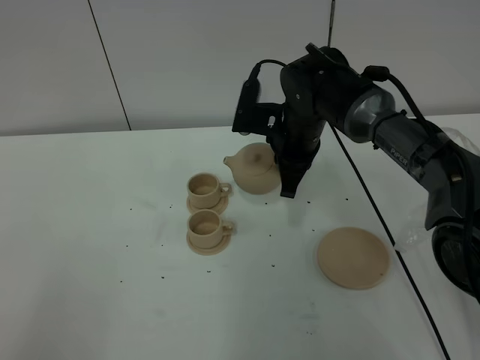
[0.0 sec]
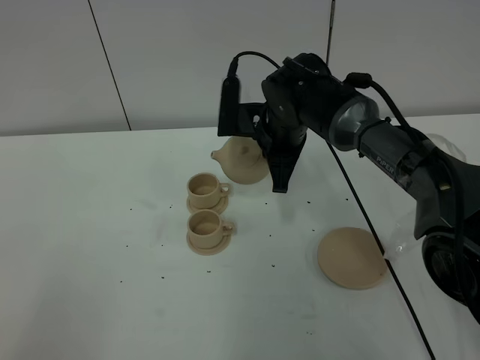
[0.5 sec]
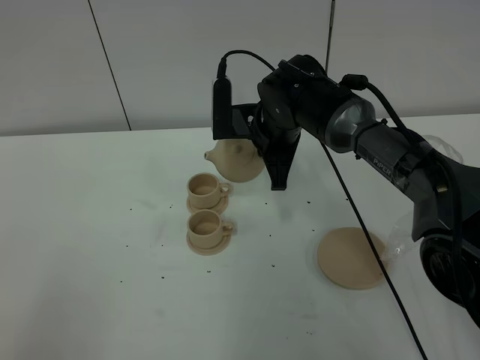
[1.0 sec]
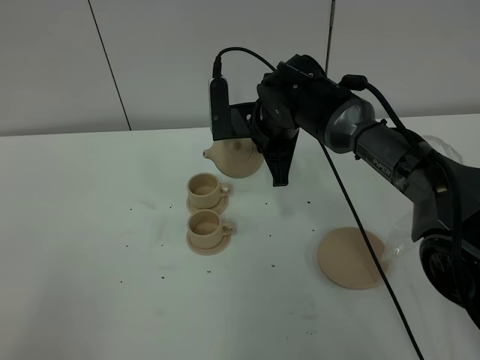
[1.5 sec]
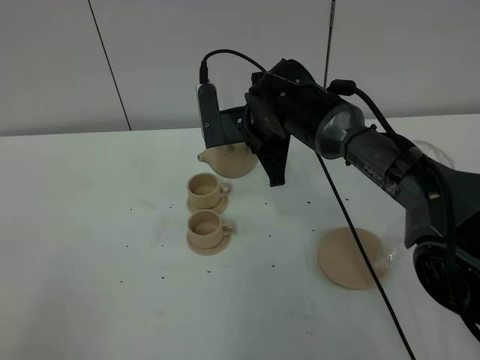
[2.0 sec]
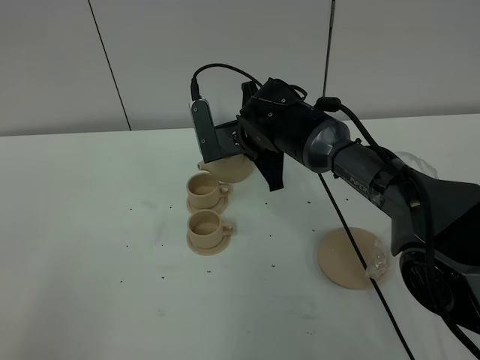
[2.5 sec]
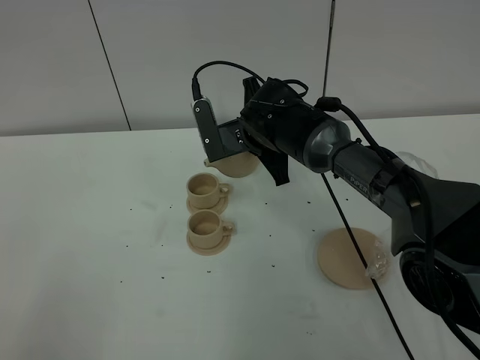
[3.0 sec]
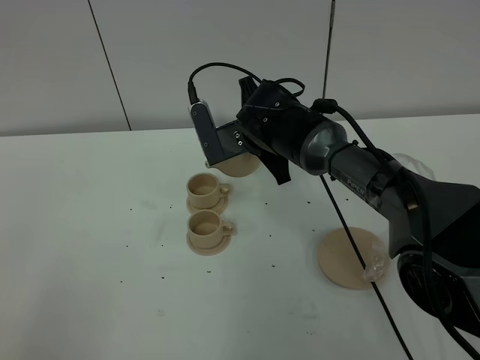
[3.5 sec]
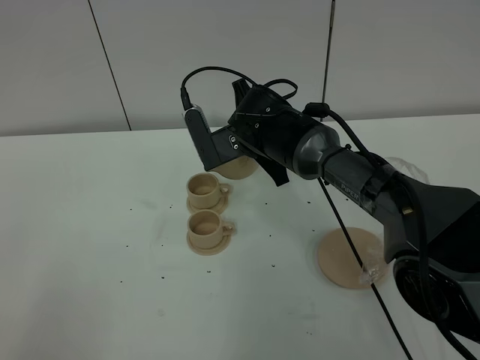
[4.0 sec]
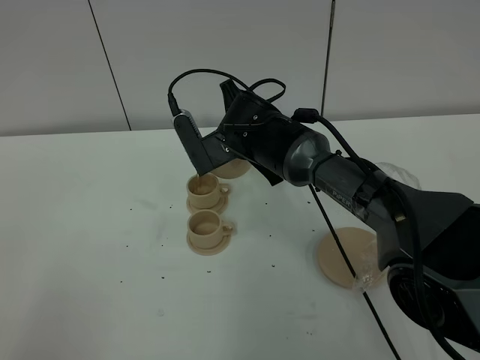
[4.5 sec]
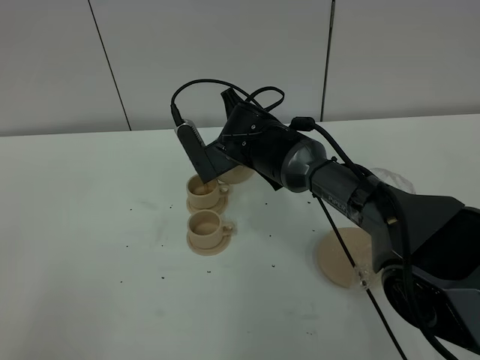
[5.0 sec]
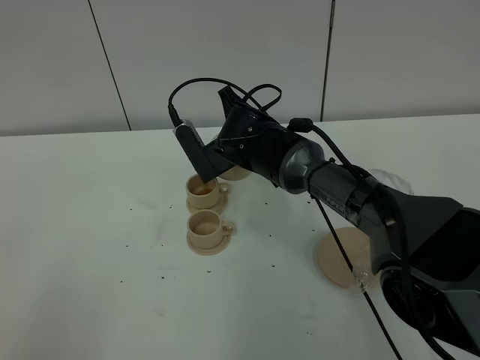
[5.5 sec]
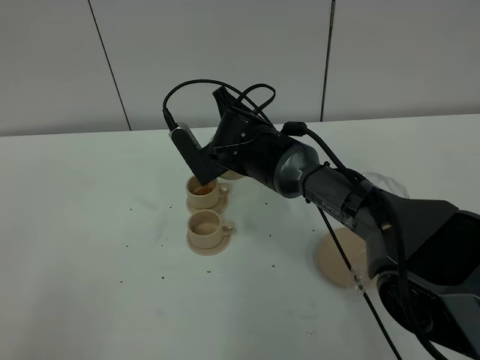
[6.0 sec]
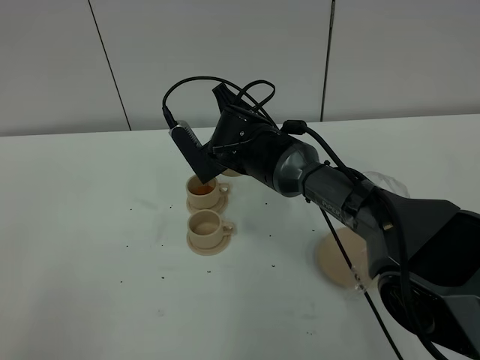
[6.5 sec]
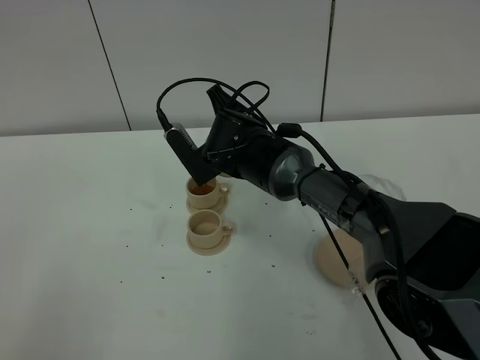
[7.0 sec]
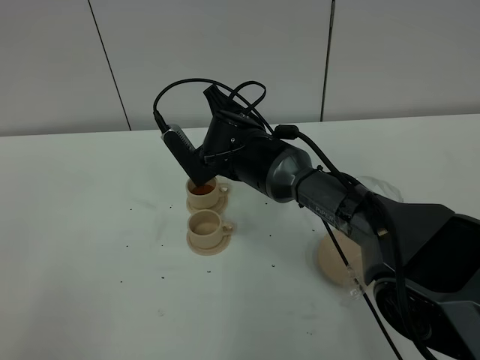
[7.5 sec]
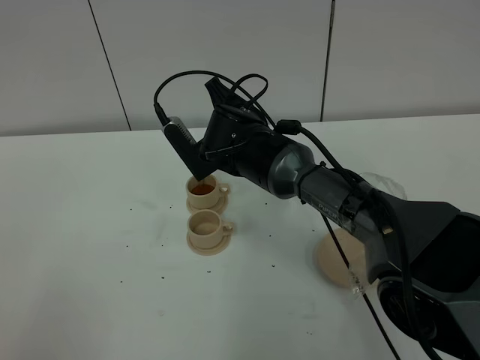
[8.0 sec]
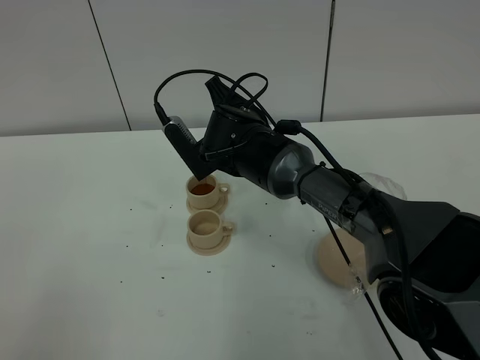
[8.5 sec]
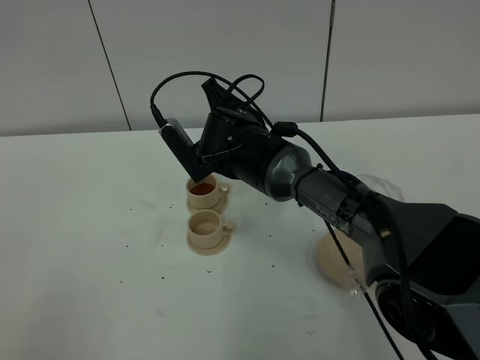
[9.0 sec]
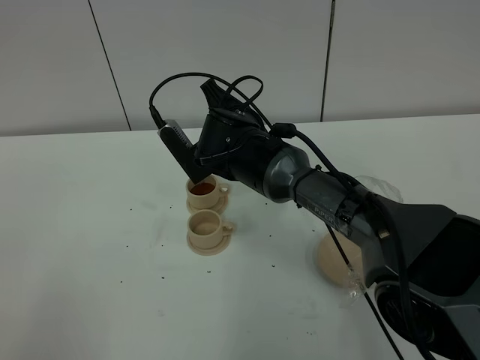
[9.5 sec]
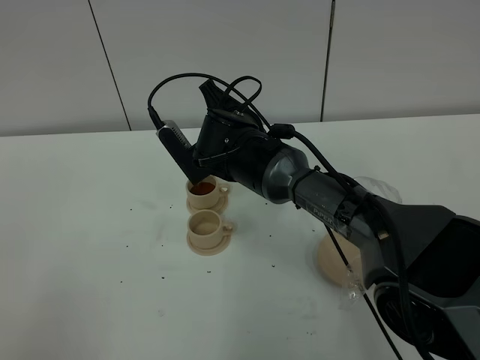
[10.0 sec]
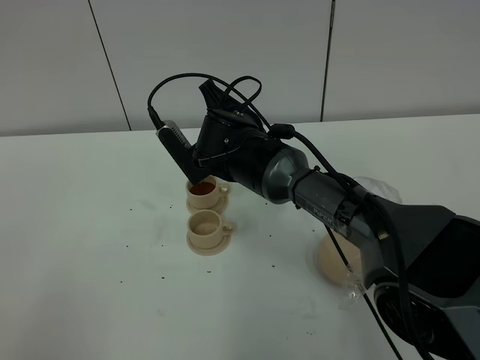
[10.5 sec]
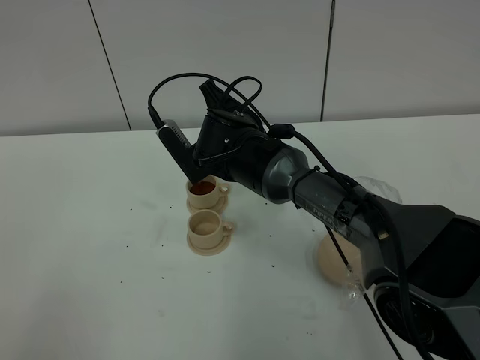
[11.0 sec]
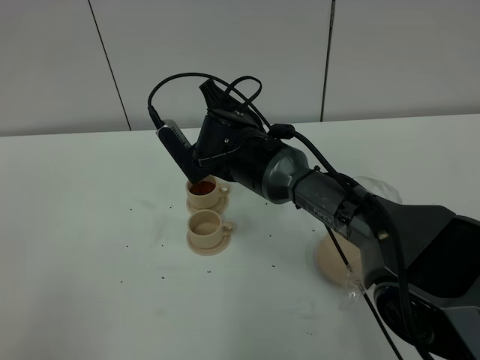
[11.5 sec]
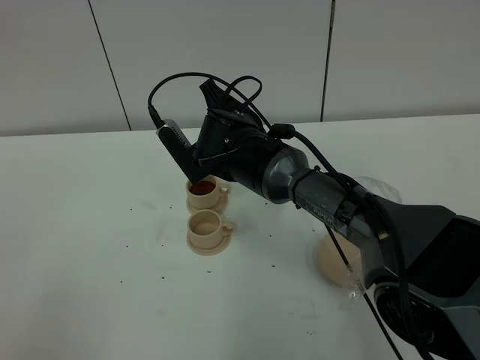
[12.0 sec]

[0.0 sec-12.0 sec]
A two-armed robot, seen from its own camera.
Task of the whole recording: grasp the brown teapot and pour the tea into the two brown teacups one by one, put the brown teapot back in its original place.
2.0 sec to 4.0 sec: There are only small adjustments of the grippers.
4.0 sec to 8.0 sec: The grippers move only a little.
8.0 sec to 12.0 sec: The two grippers keep their place.

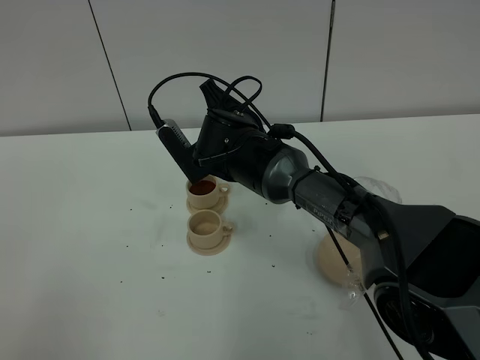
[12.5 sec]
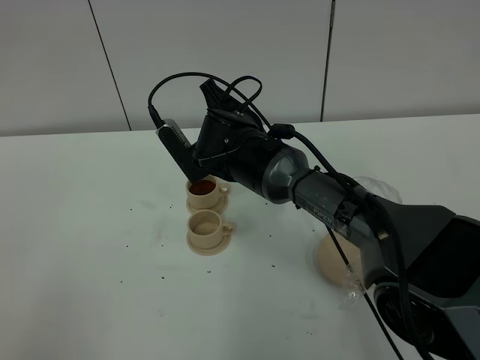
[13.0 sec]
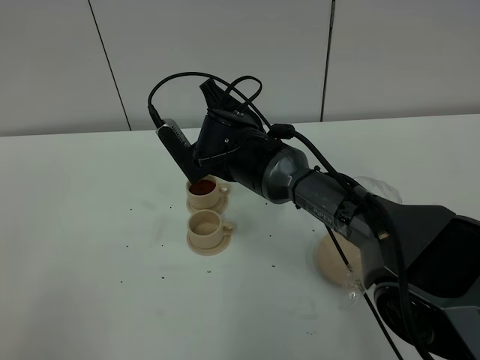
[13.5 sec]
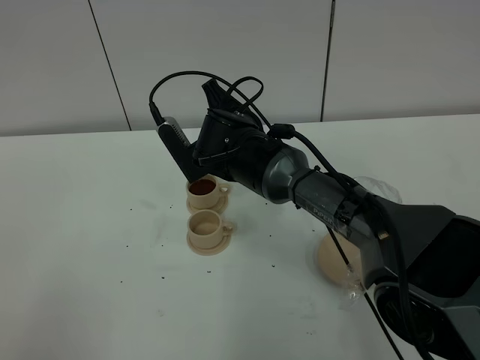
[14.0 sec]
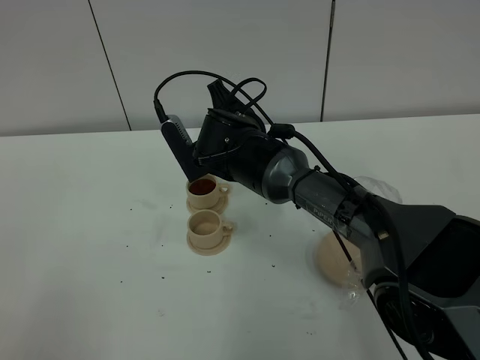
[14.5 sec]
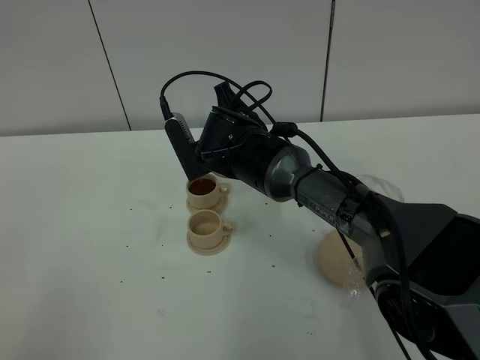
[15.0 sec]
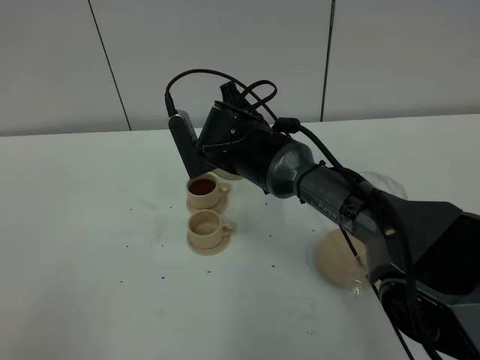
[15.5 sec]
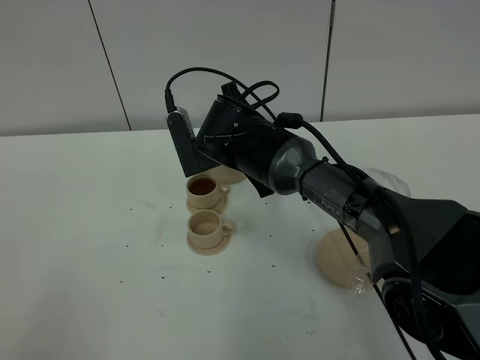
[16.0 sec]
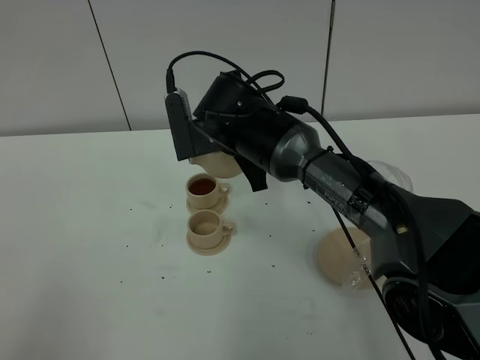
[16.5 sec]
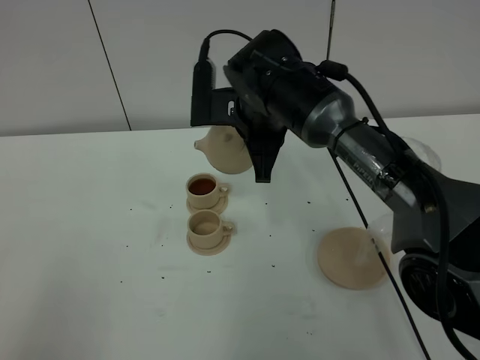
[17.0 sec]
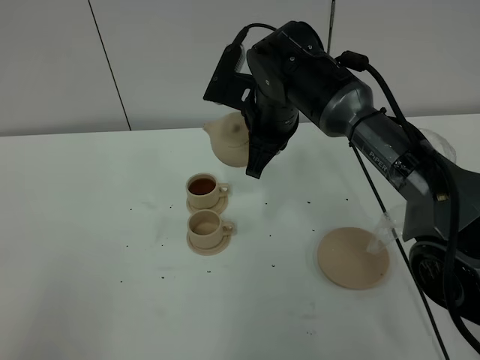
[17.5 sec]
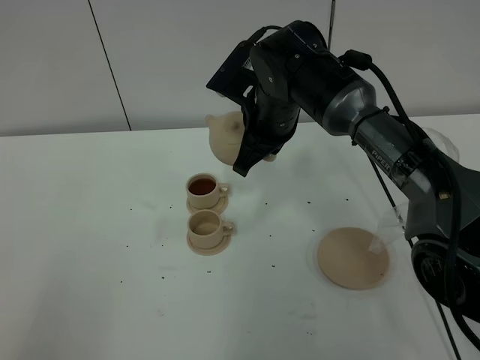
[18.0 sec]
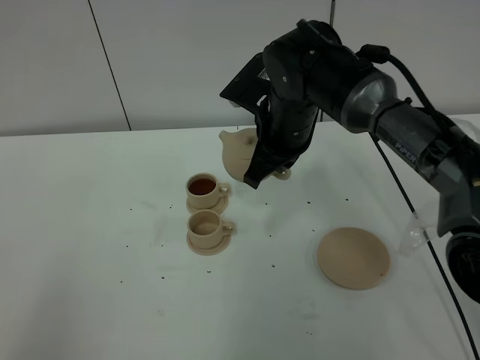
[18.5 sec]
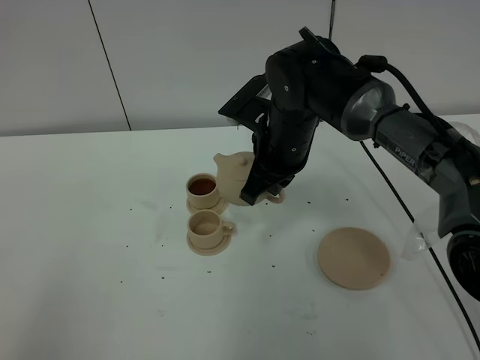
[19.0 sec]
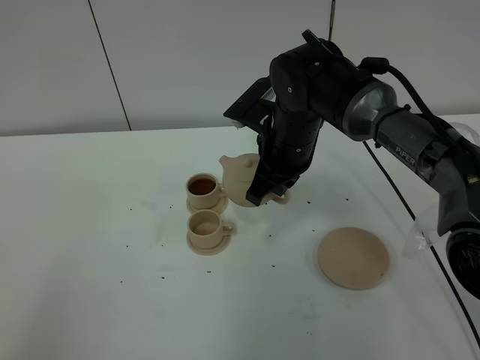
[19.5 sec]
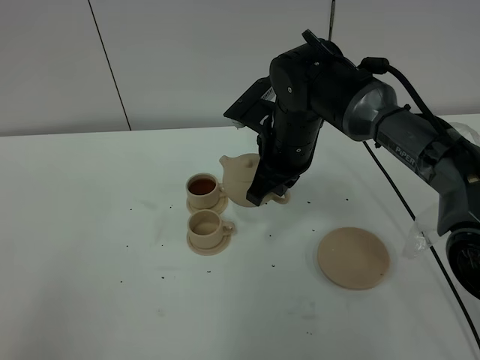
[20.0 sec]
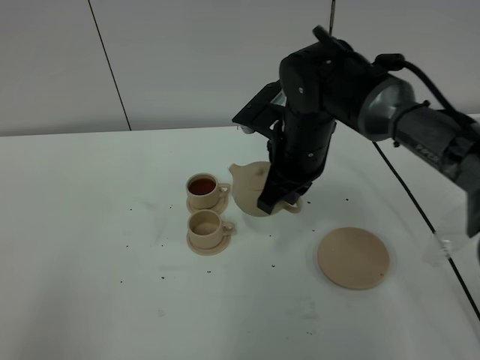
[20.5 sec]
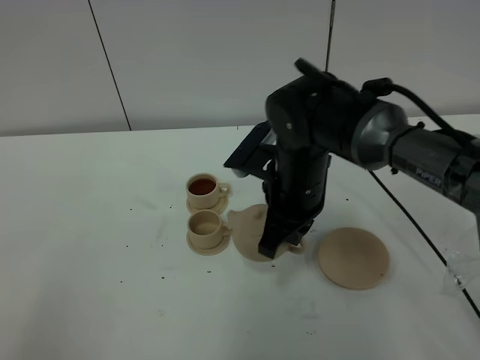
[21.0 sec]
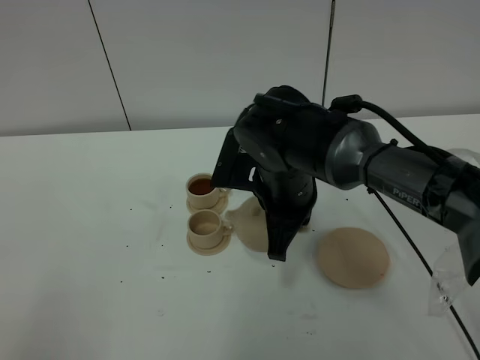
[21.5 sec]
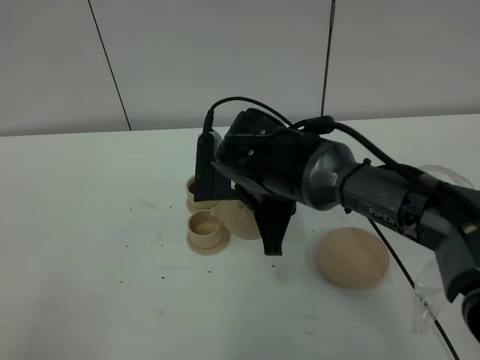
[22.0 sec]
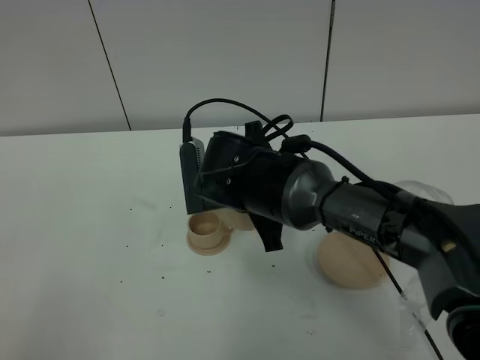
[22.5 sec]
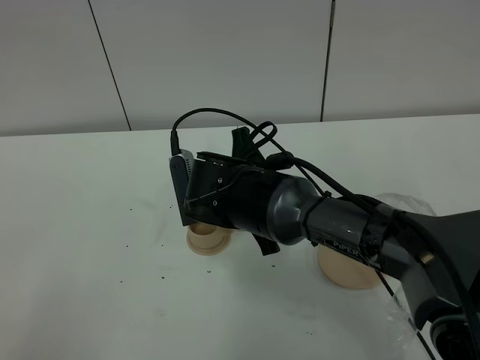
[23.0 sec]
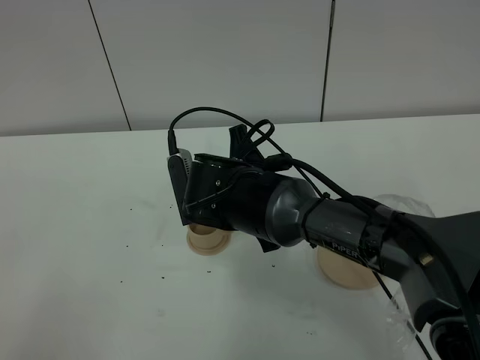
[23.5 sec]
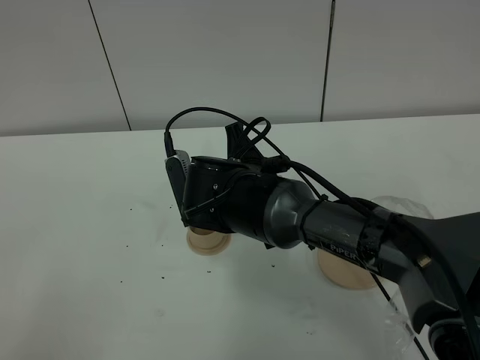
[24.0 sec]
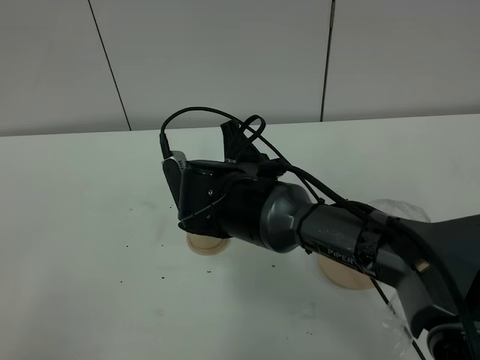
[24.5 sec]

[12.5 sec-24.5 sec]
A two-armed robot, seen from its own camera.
Task of the whole recording: grasp the brown teapot and pour the tea into the two brown teacups one by one, put the brown teapot back in its original place.
12.5 sec to 14.5 sec: The grippers move only a little.
16.5 sec to 18.5 sec: The right gripper goes some 5 cm to the right.
18.5 sec to 20.5 sec: The grippers make only small movements.
20.5 sec to 22.5 sec: The right gripper travels to the left and backward by roughly 10 cm.
22.5 sec to 24.5 sec: The grippers stay close to where they were, moving slightly.

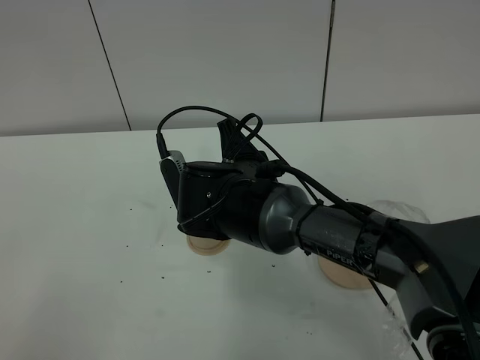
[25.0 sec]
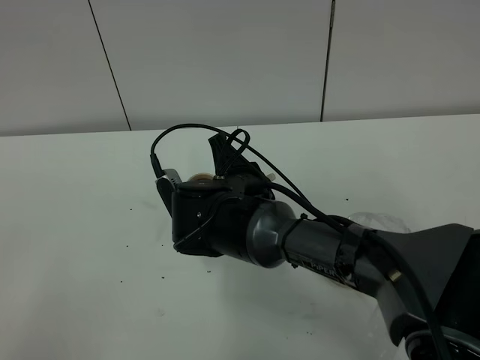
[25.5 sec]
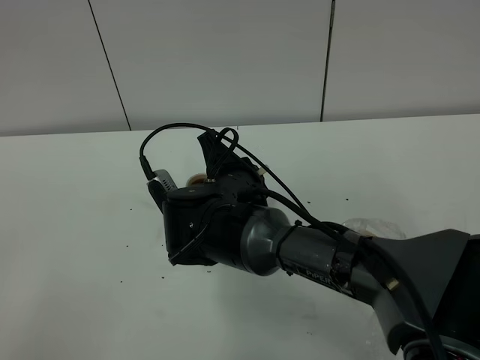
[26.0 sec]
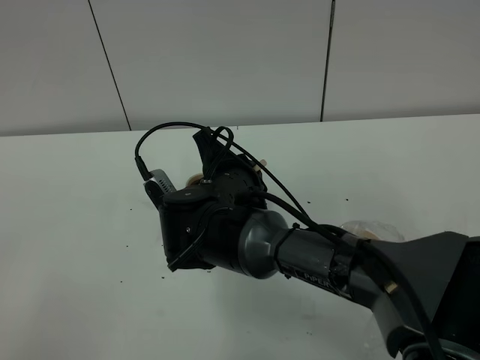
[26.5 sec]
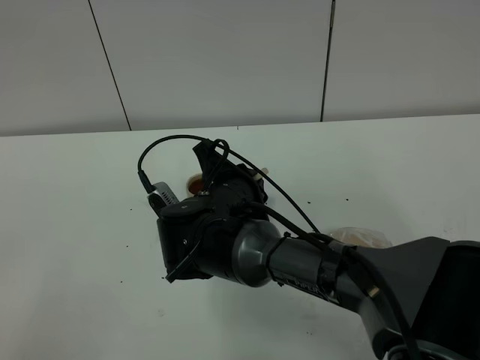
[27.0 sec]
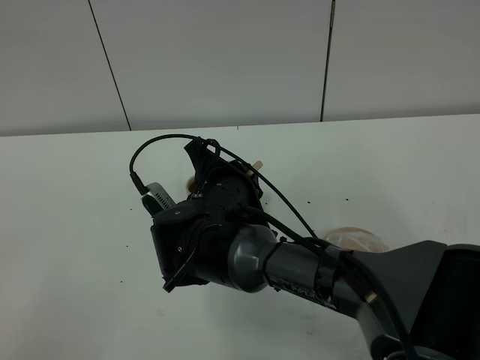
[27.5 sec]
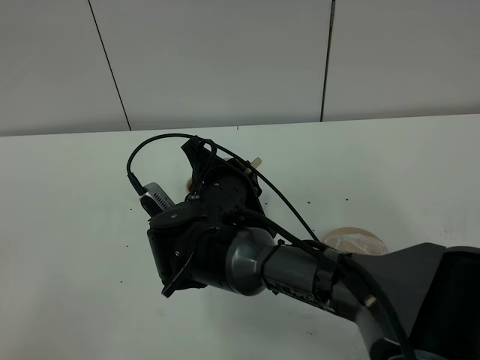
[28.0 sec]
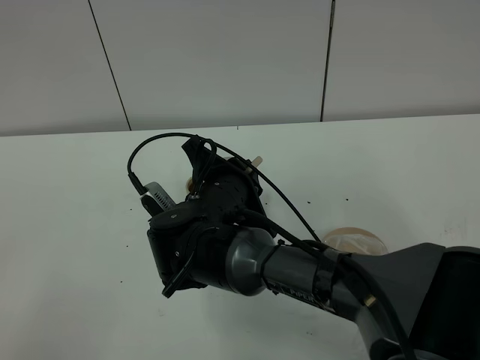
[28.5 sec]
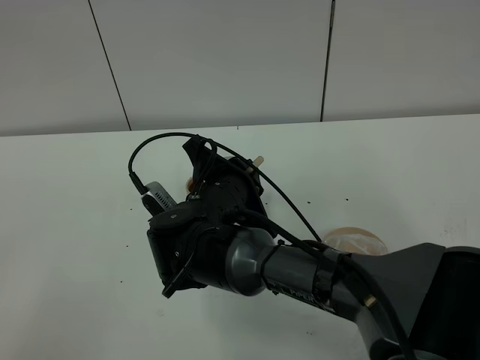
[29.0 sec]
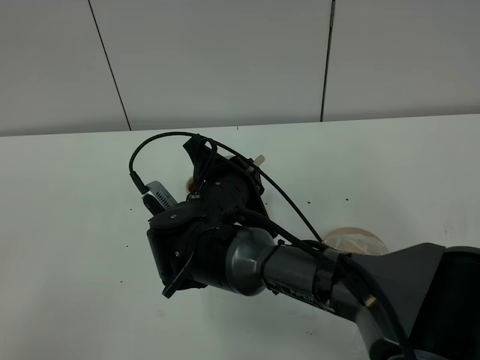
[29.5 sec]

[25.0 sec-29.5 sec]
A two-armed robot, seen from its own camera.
Task of the whole recording: grasp the brown teapot and pour the tea into the two brown teacups one by one, put the brown teapot back in its original place.
25.0 sec to 27.0 sec: The grippers make only small movements.
27.0 sec to 29.5 sec: The grippers move only a little.
